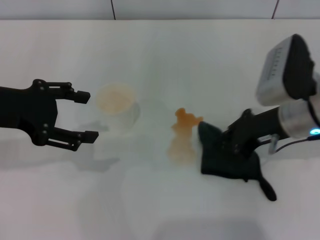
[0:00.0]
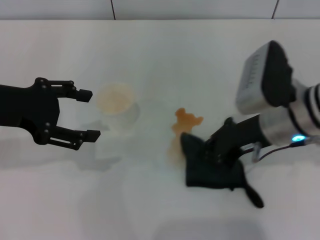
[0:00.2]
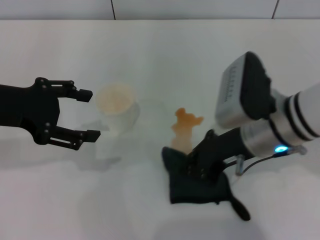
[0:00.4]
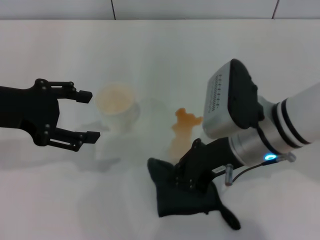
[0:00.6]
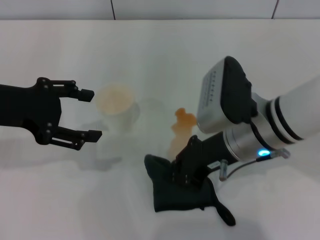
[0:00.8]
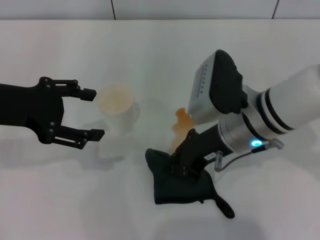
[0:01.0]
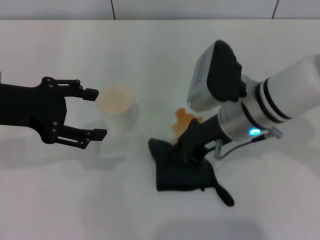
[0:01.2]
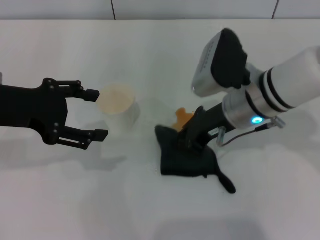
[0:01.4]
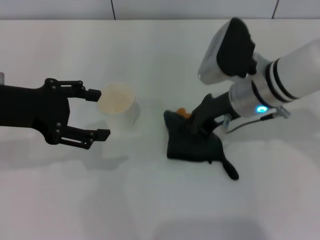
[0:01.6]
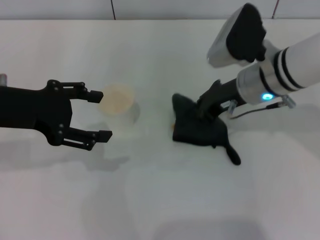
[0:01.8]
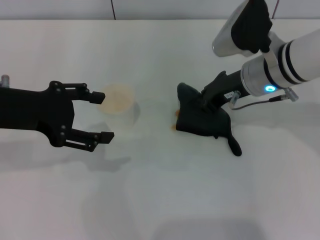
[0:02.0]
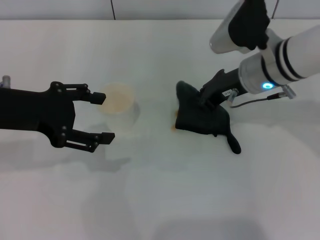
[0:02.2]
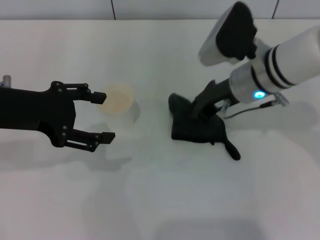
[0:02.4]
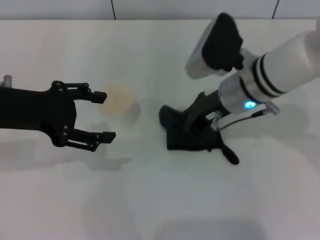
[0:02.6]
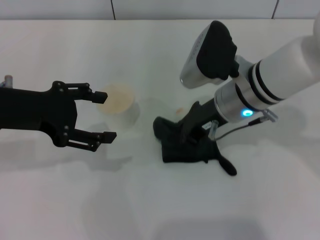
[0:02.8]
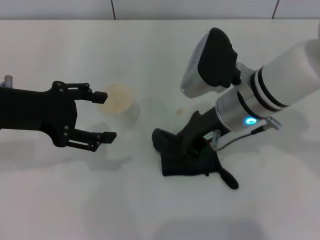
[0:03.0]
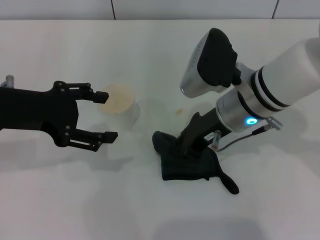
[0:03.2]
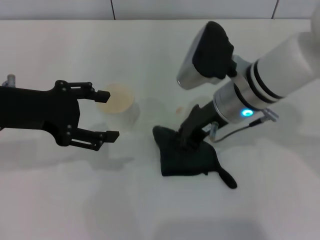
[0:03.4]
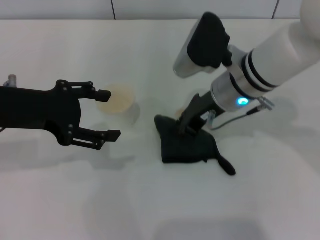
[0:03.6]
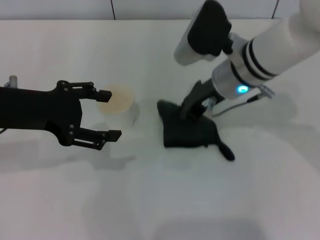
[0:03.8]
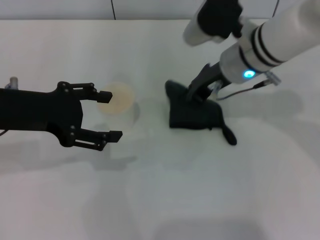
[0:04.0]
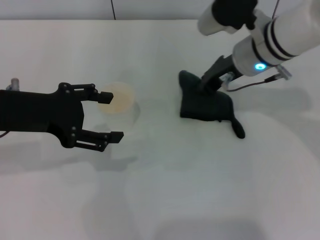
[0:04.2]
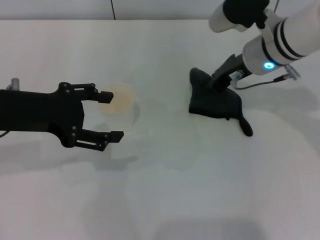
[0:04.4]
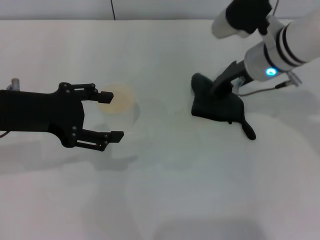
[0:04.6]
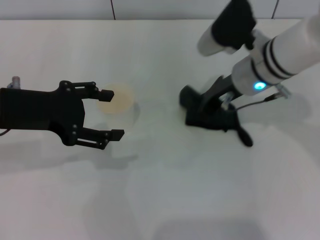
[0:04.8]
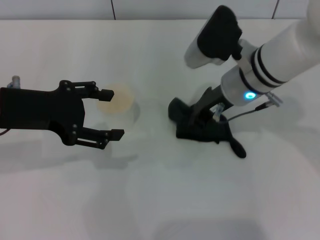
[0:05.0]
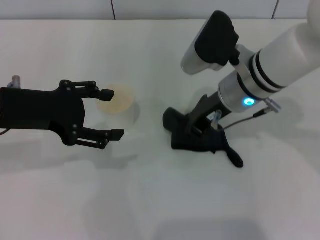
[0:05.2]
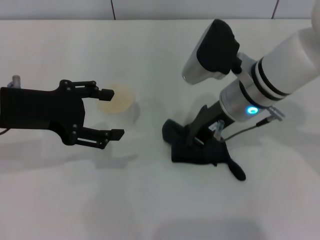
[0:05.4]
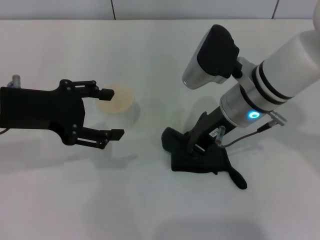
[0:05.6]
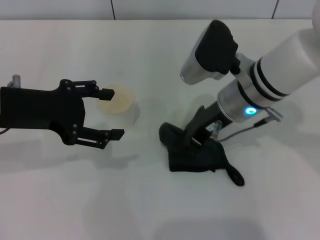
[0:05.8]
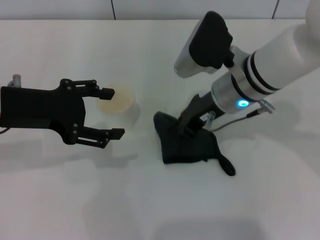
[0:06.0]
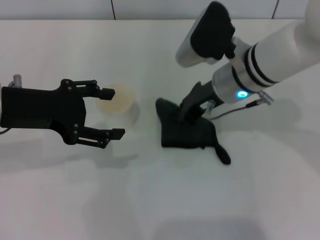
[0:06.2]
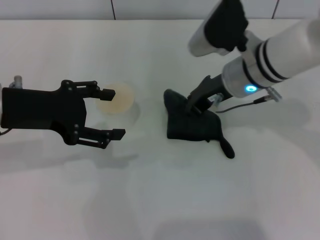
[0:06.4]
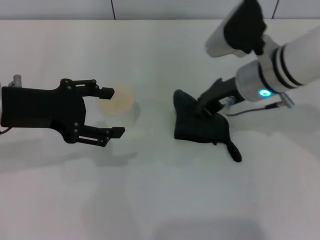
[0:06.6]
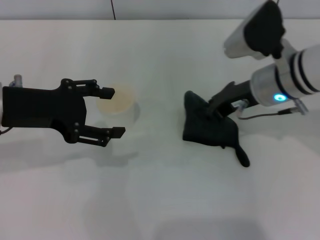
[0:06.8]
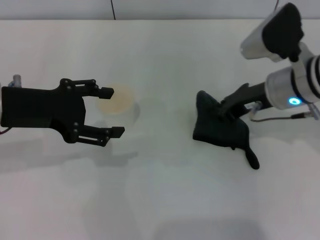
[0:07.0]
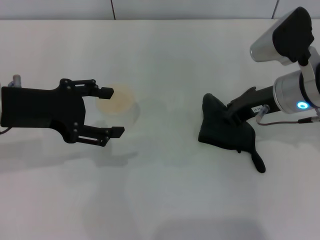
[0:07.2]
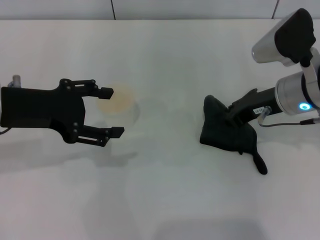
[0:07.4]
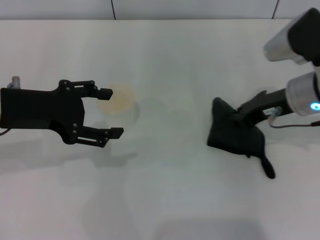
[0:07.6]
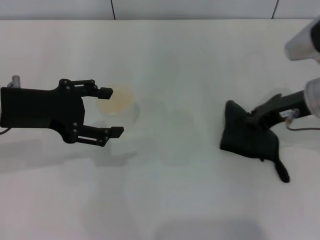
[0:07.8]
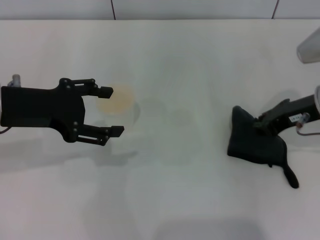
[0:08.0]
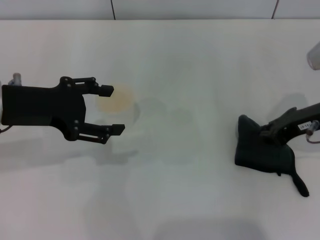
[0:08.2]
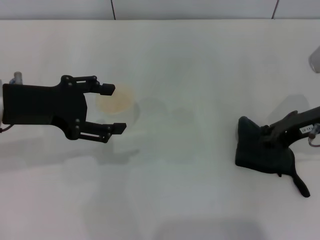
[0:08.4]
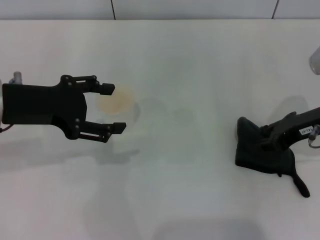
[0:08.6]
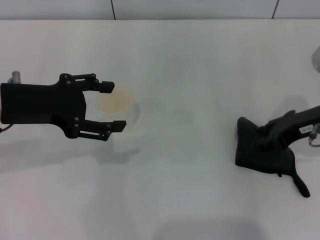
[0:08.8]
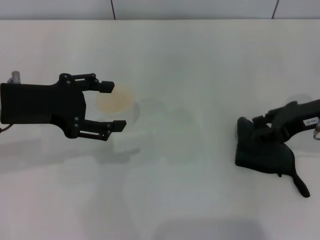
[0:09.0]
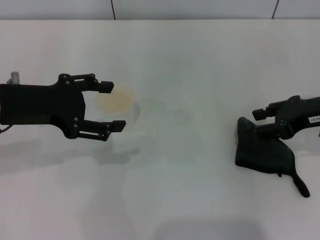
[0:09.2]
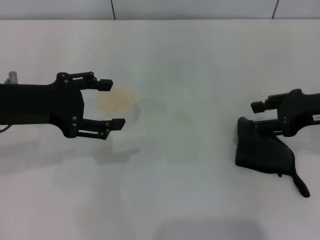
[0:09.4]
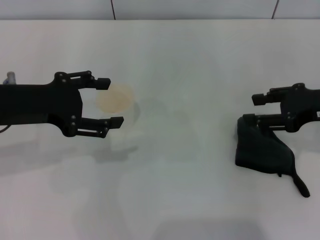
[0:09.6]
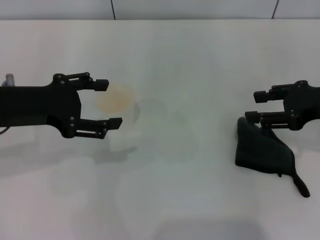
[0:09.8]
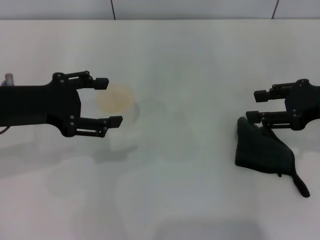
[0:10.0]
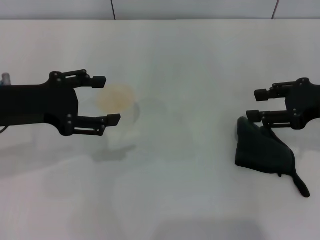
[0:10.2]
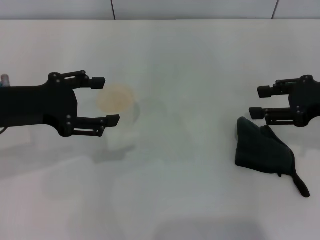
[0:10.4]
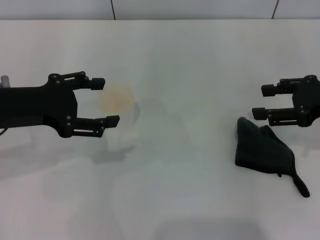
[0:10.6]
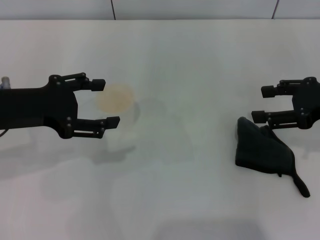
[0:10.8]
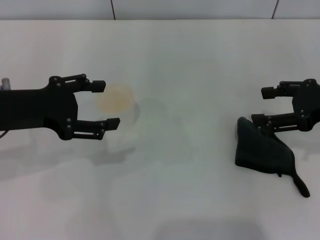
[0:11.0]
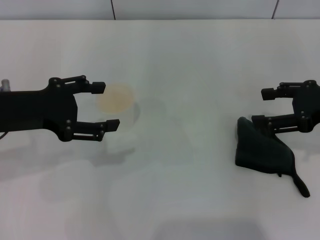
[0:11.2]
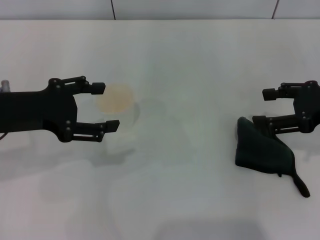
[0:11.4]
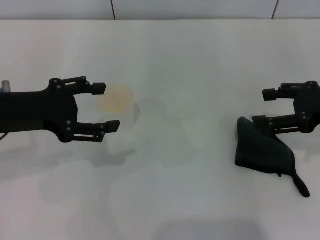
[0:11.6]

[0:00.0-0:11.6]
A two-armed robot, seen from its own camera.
Step, 0:00.0 to 0:06.6: Wipe the stains off the table with the right gripper.
Step, 0:06.8 to 0:09.6: Place the rag on the table with the right gripper.
0:00.0 to 0:01.4: The right gripper travels to the left by about 5 cm.
0:01.4 to 0:02.8: There are only small adjustments of the grippers.
0:02.8 to 0:04.4: The right gripper moves forward, approximately 5 cm.
0:04.4 to 0:05.8: The right gripper moves backward, about 5 cm.
0:05.8 to 0:07.2: The right gripper heads to the right, covering some 10 cm.
0:07.2 to 0:08.8: The right gripper heads to the right, covering about 5 cm, and opens.
0:08.8 to 0:10.2: The right gripper opens up.
0:10.2 to 0:11.6: Neither gripper changes place.

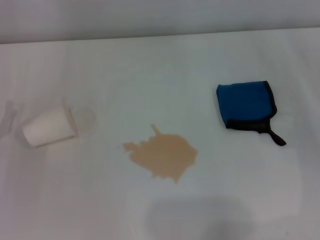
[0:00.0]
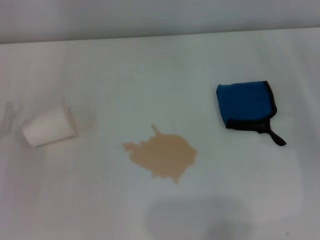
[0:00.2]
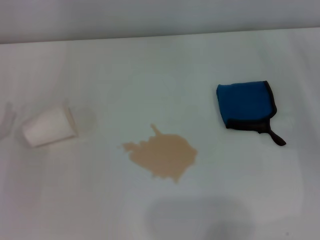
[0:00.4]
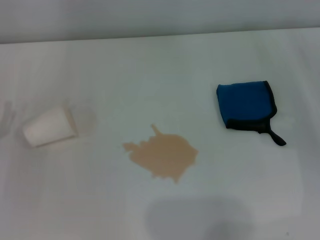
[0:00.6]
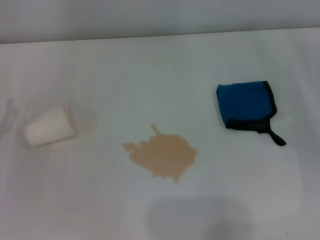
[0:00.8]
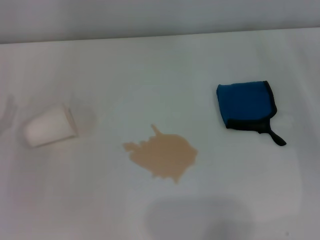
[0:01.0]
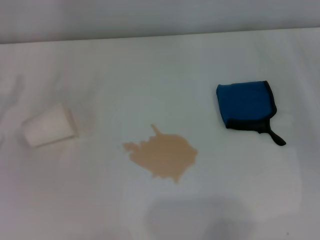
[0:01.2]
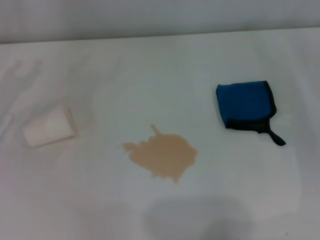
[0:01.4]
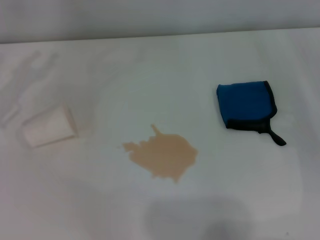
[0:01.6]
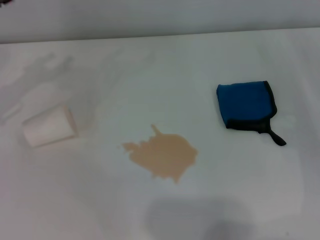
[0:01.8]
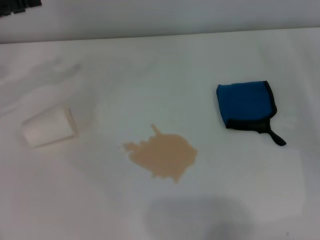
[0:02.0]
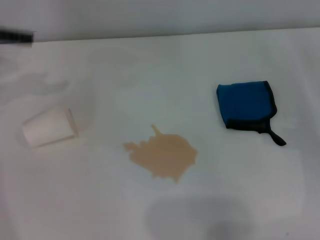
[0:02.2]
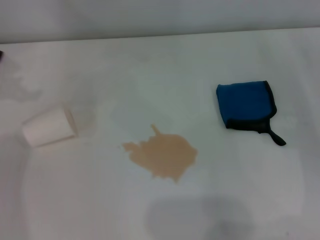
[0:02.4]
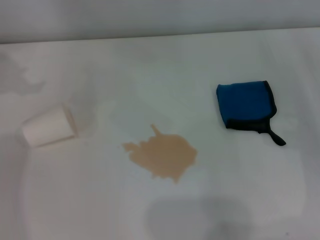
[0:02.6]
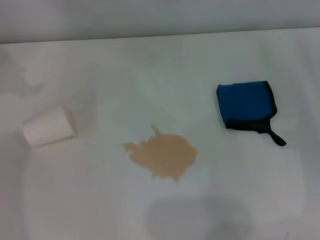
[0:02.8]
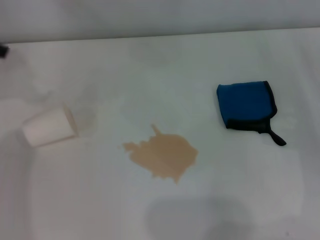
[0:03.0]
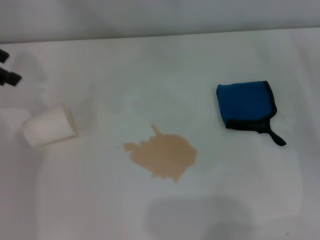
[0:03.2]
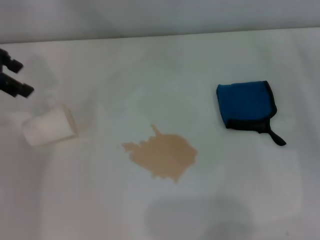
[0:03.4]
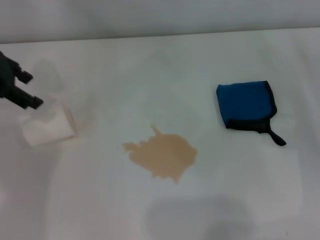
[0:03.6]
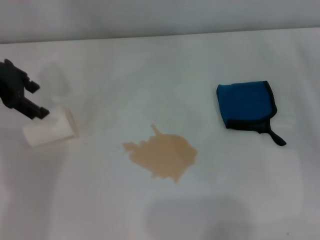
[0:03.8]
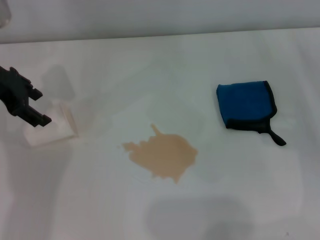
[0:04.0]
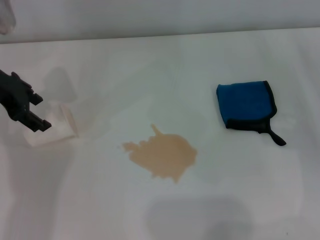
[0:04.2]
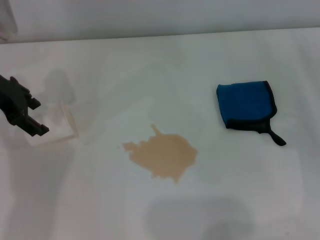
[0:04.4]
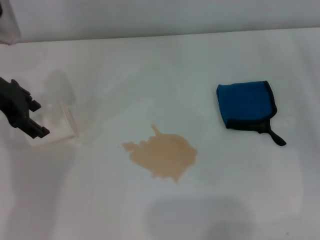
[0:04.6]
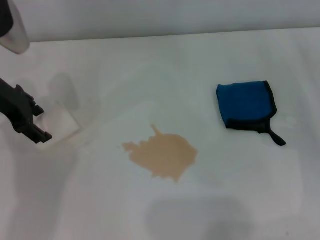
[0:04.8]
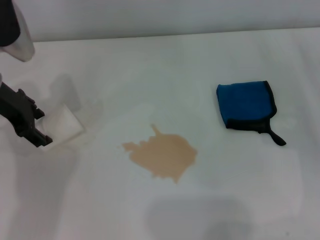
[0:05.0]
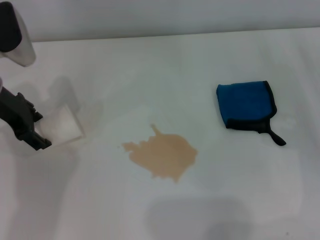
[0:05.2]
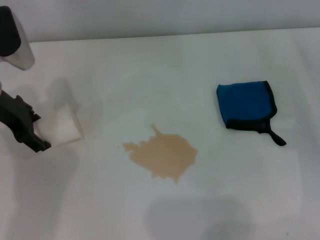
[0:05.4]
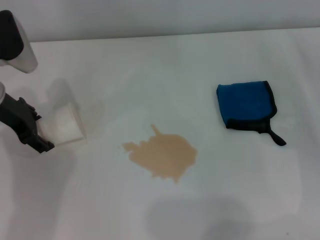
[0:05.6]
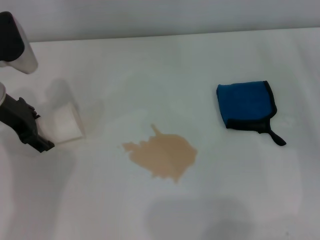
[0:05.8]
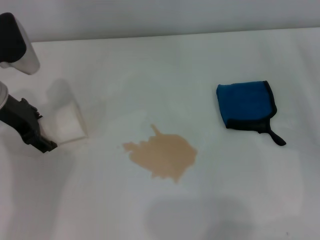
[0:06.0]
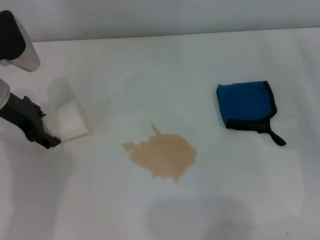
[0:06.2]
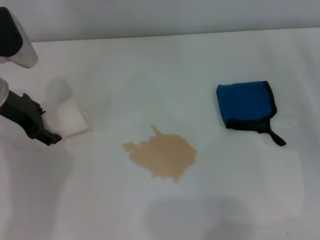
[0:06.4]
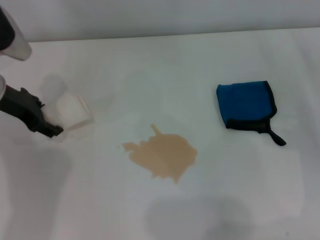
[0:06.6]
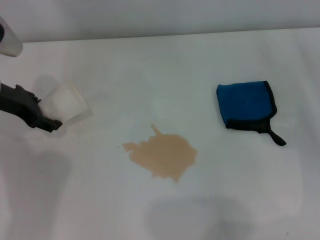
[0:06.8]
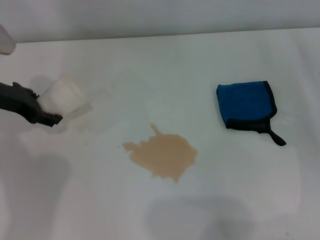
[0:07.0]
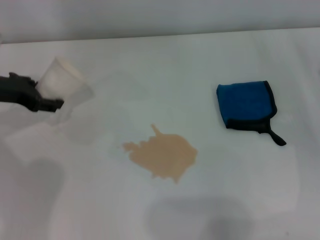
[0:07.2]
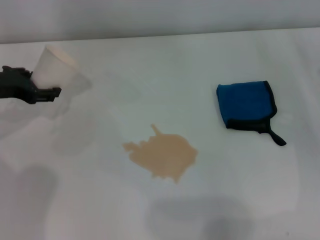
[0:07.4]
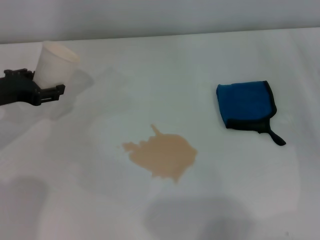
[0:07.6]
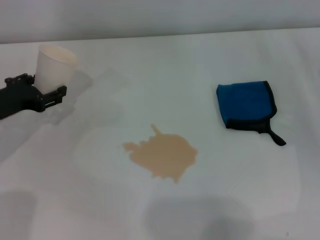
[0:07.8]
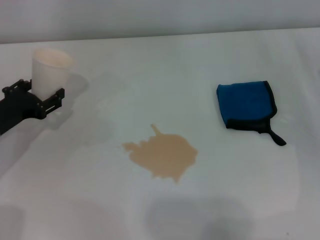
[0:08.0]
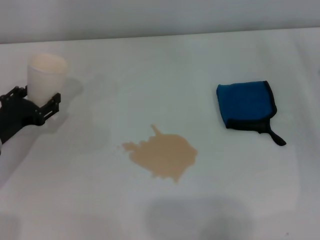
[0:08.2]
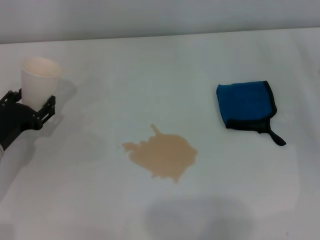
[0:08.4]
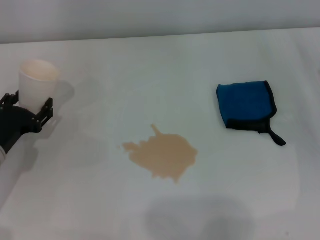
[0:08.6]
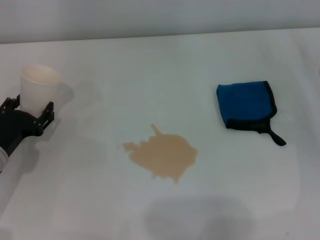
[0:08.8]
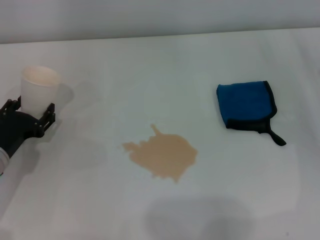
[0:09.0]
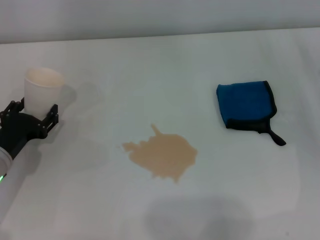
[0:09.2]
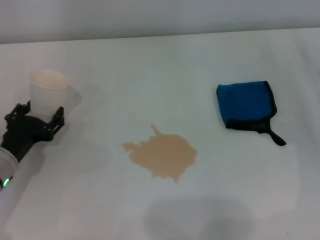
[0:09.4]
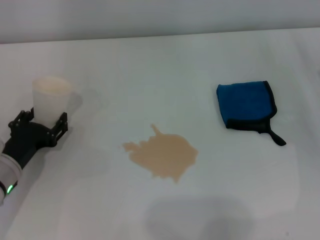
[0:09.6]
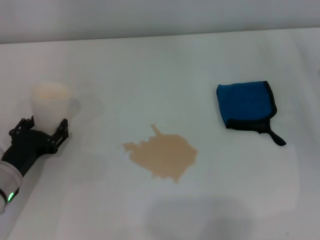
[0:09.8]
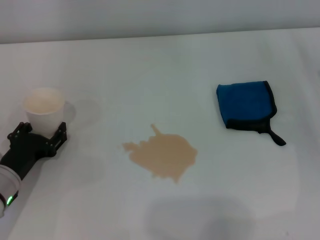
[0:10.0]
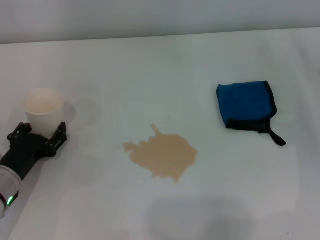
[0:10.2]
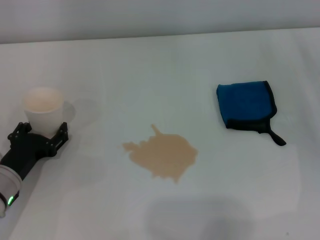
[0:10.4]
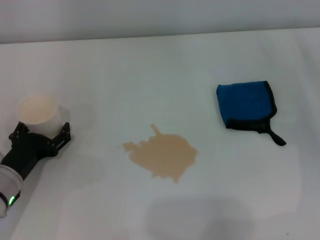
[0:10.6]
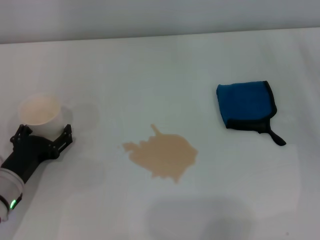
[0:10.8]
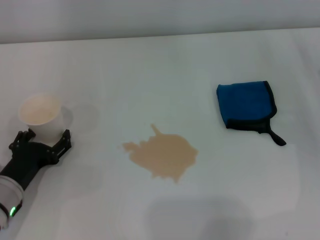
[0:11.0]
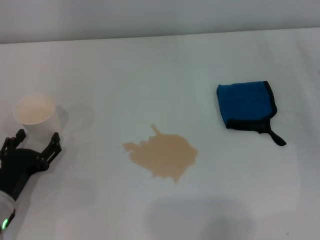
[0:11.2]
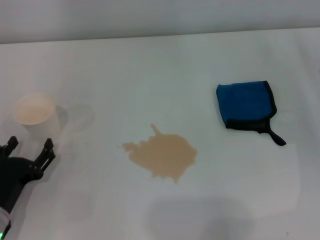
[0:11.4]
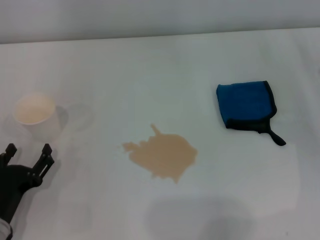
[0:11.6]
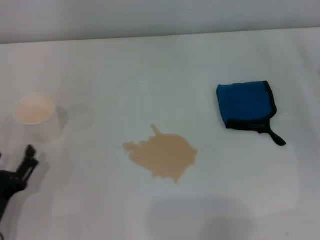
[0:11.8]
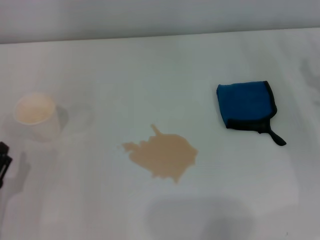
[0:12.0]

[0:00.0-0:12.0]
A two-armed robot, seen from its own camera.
Step, 0:00.0 to 0:06.0: Grasp the paper cup with the left gripper.
Step, 0:06.2 to 0:10.6: Stand the paper cup upright with the left gripper.
0:03.0 to 0:04.4: The left gripper travels downward and to the right by approximately 10 cm.
0:04.4 to 0:06.0: The left gripper moves downward, approximately 5 cm.
0:06.0 to 0:07.6: The left gripper shifts by roughly 5 cm, and closes its fingers.
0:07.6 to 0:09.0: The left gripper is displaced downward and backward by some 15 cm.
0:09.0 to 0:10.4: There are only small adjustments of the grippers.
0:10.4 to 0:12.0: The left gripper travels backward by approximately 10 cm, and opens up.
